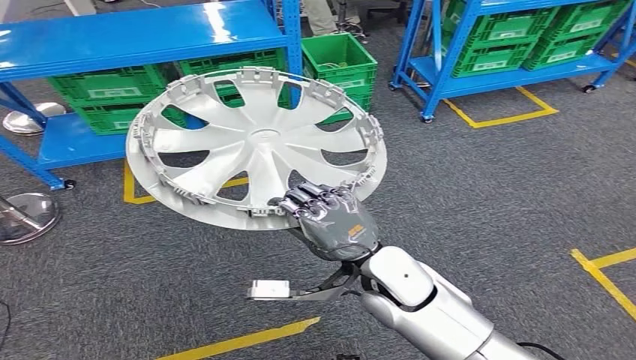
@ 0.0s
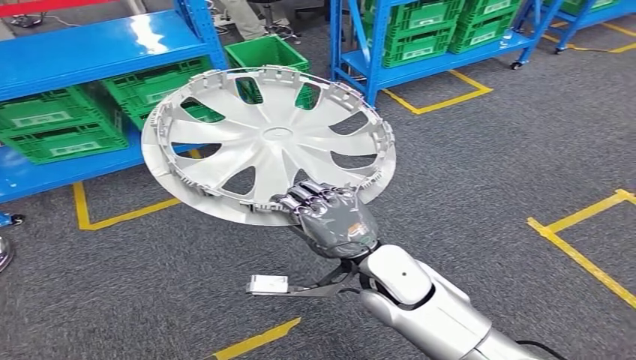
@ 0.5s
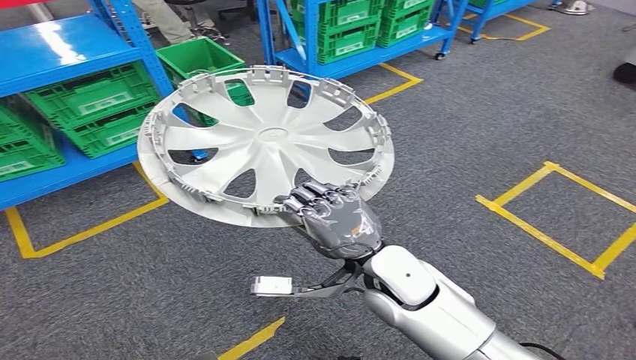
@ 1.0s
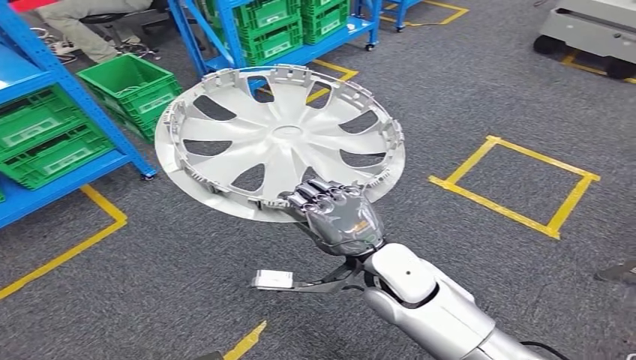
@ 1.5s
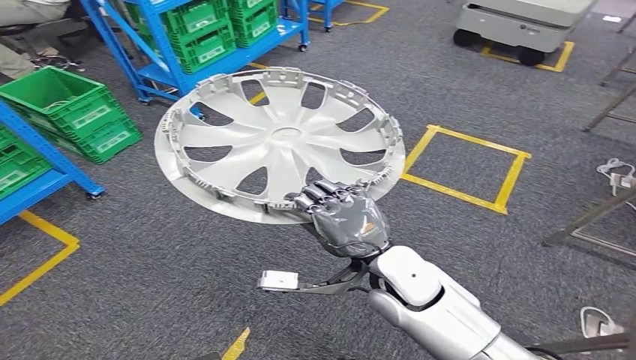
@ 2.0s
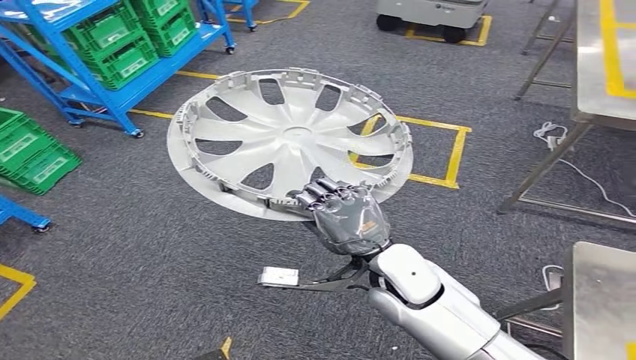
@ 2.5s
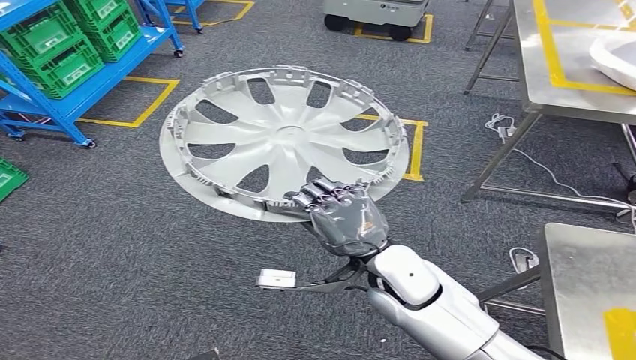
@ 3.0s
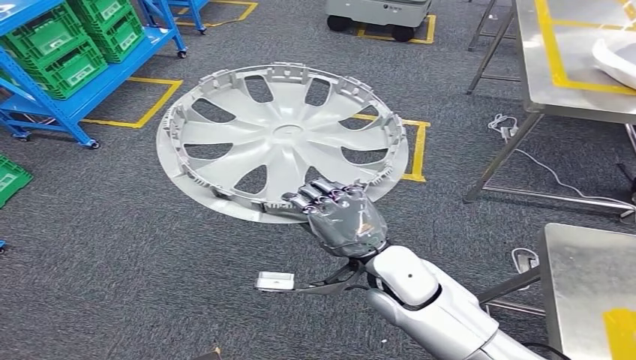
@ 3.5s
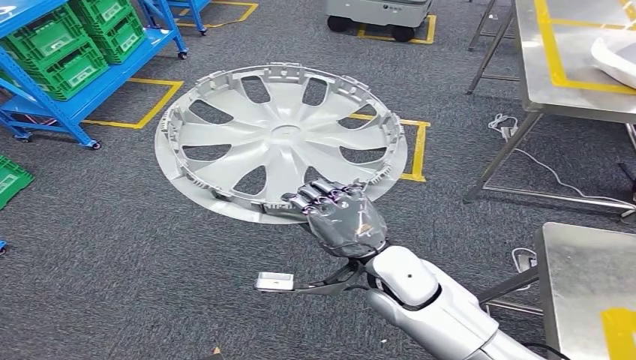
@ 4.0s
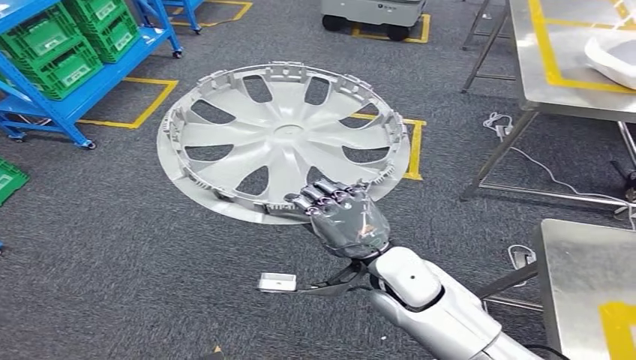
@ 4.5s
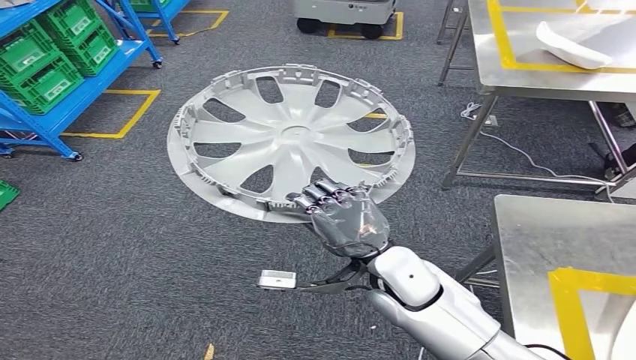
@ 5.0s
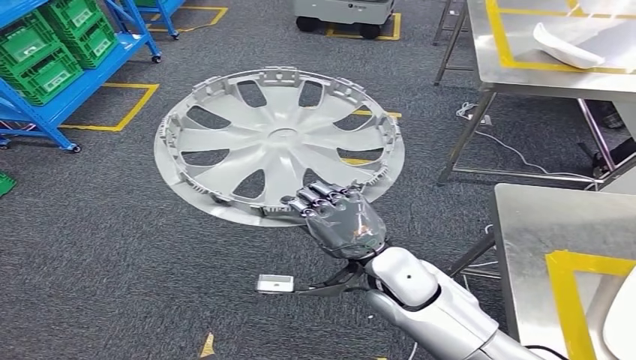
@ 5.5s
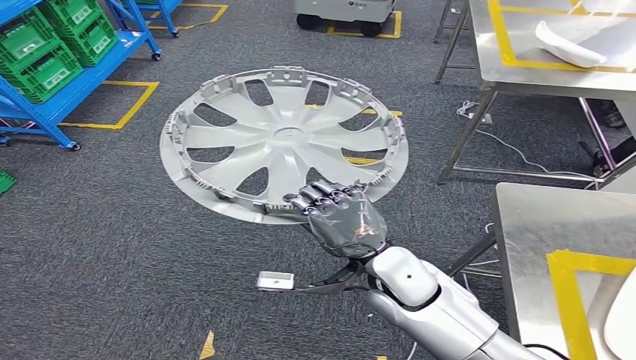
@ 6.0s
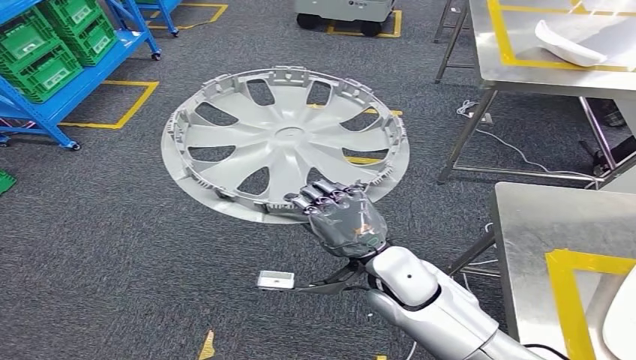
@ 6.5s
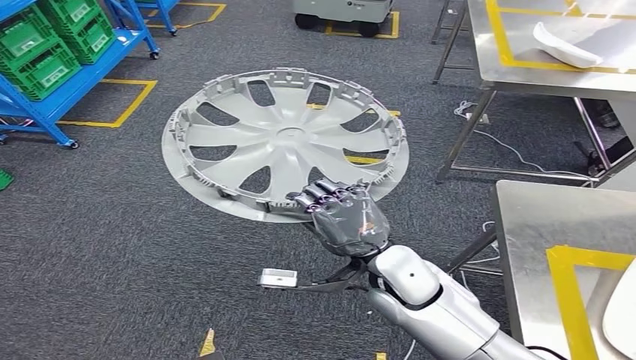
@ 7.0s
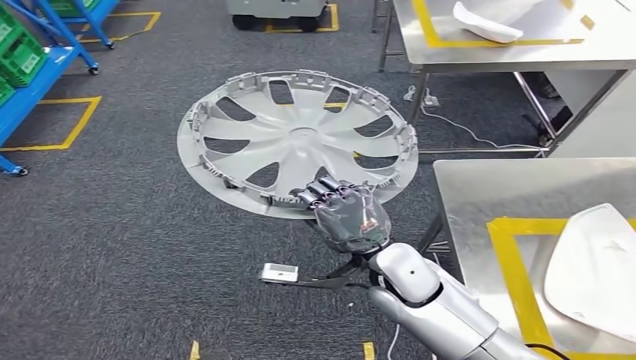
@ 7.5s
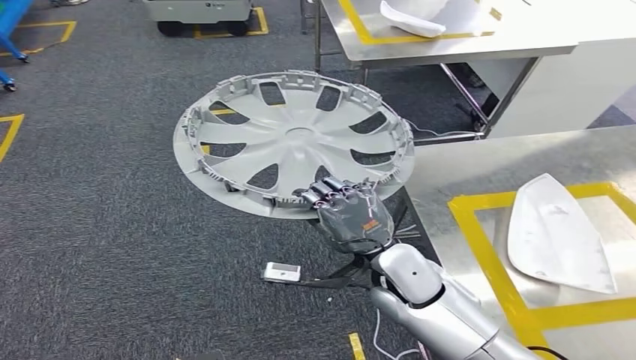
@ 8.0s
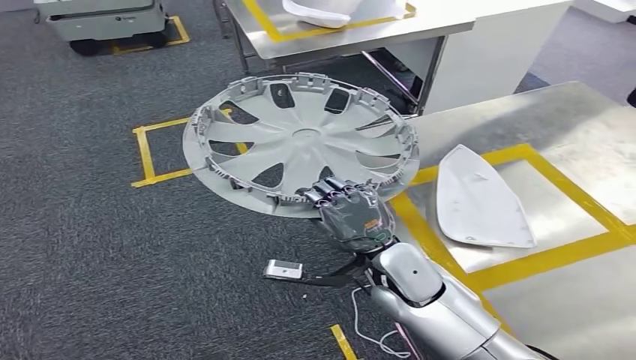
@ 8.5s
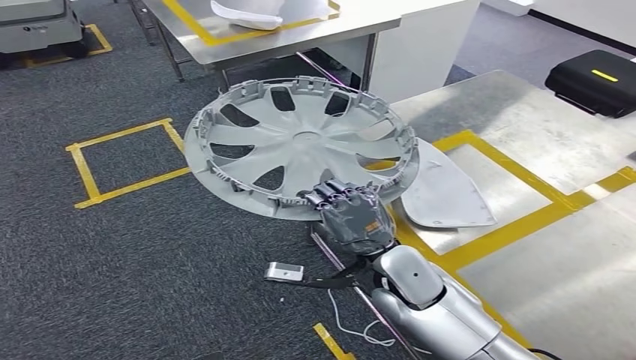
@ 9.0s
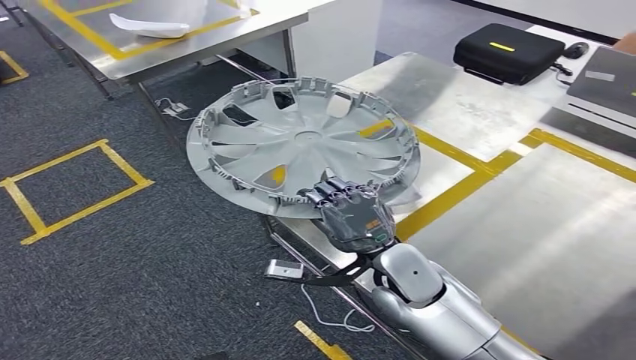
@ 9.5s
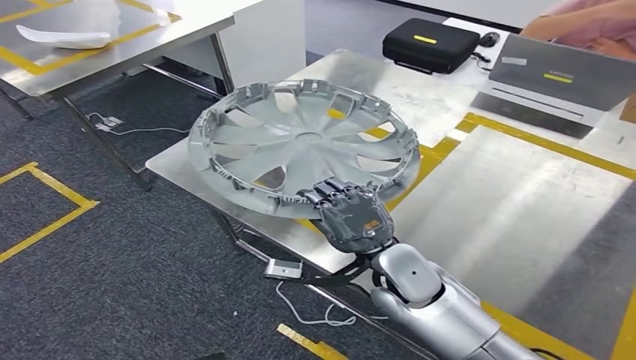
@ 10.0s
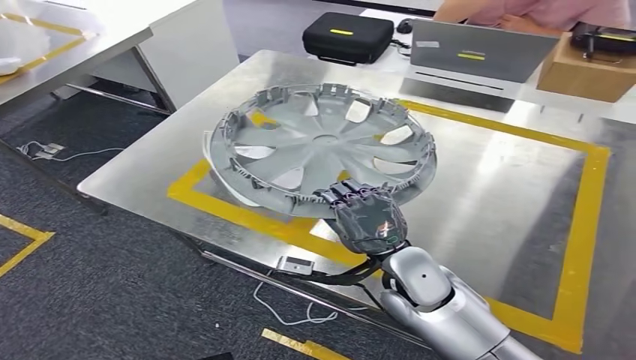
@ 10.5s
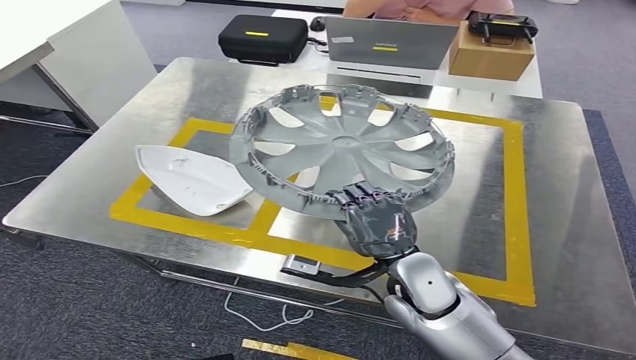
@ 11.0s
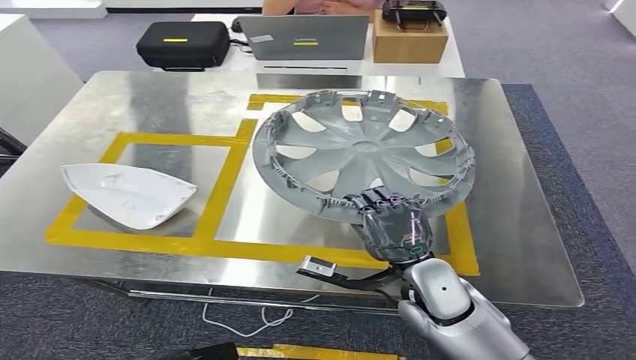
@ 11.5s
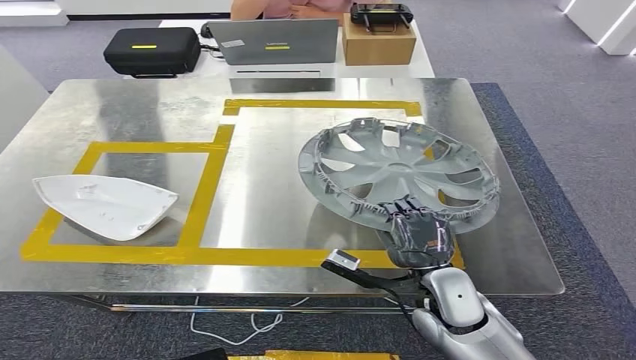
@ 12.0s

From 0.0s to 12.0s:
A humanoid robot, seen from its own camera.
Step, from 0.0s to 4.0s: Move the small parts to the workbench.

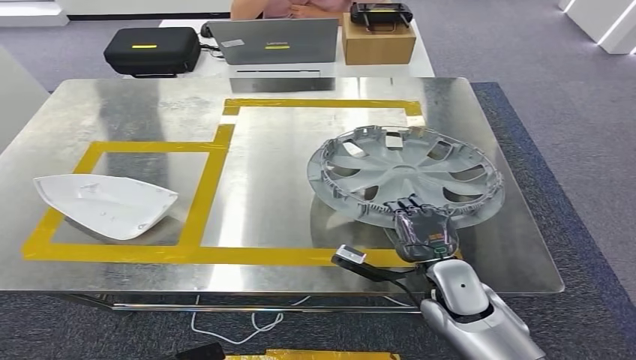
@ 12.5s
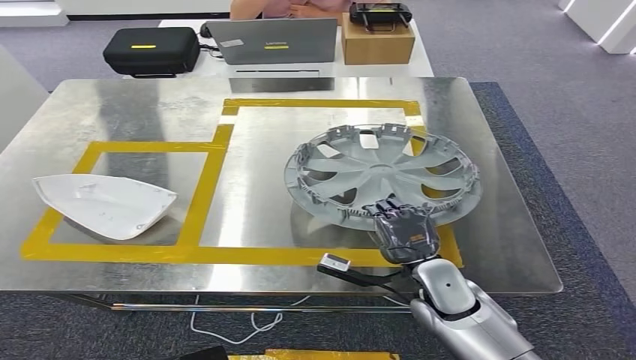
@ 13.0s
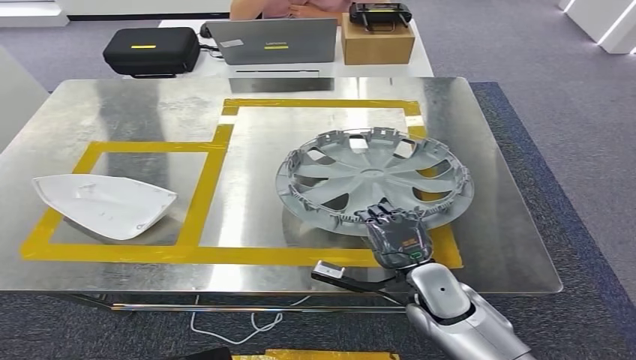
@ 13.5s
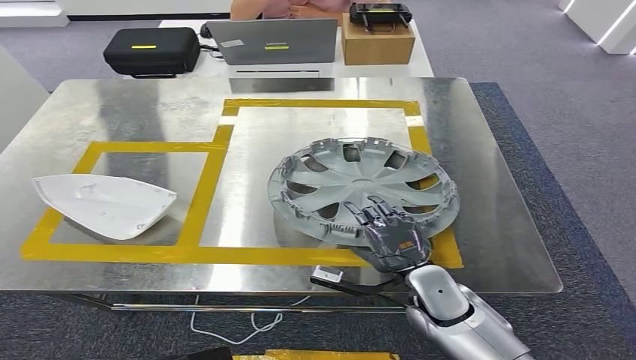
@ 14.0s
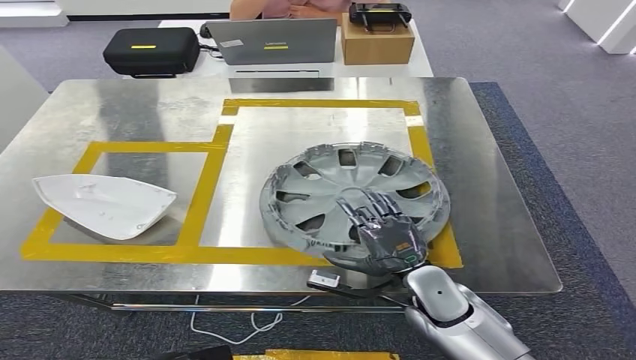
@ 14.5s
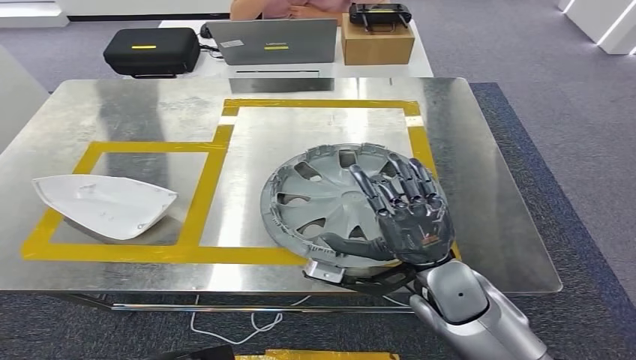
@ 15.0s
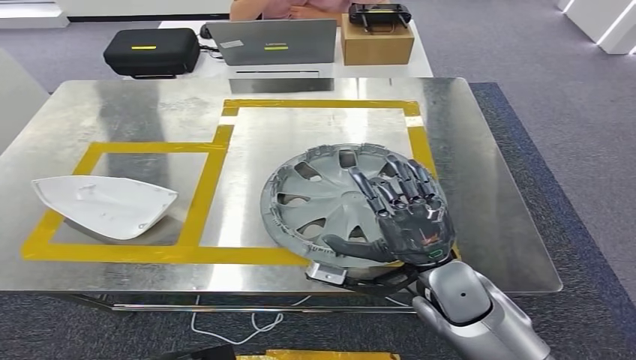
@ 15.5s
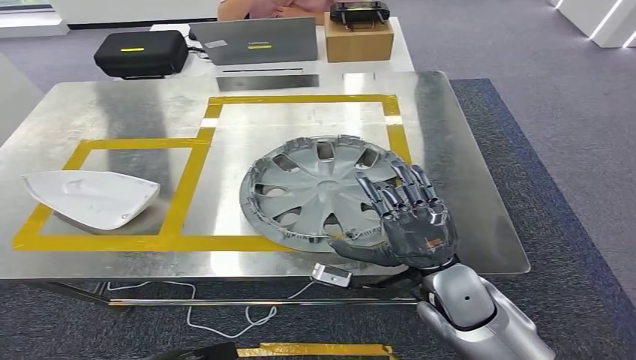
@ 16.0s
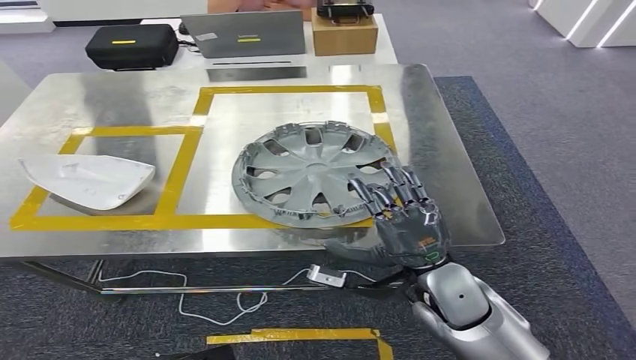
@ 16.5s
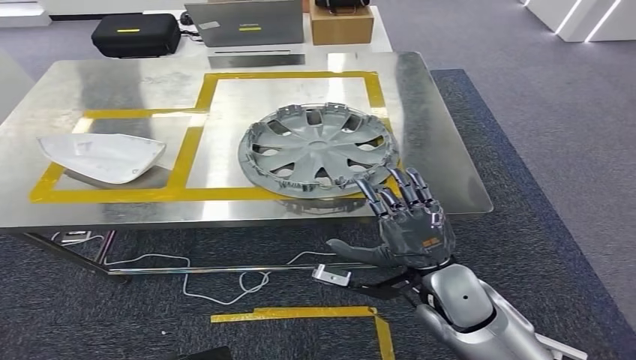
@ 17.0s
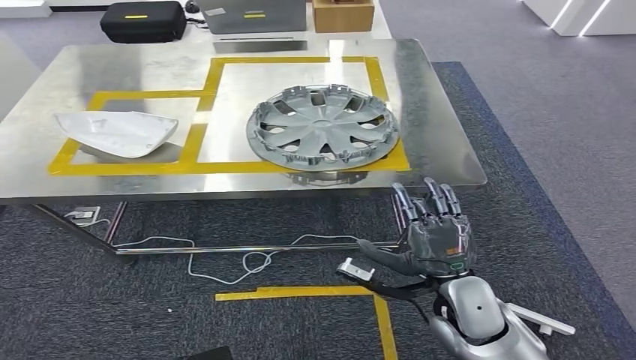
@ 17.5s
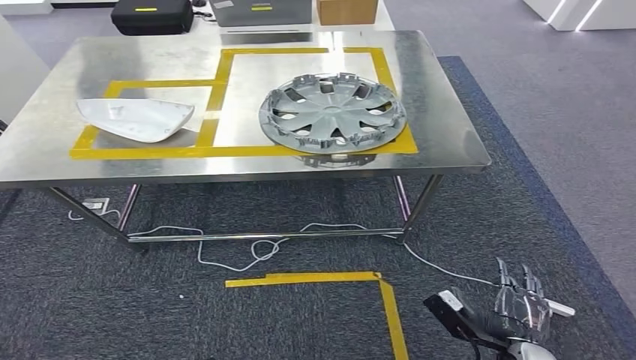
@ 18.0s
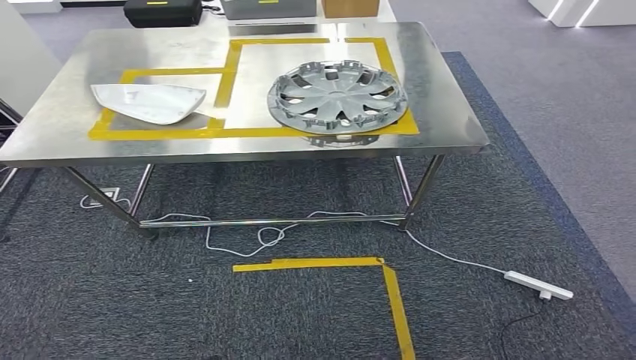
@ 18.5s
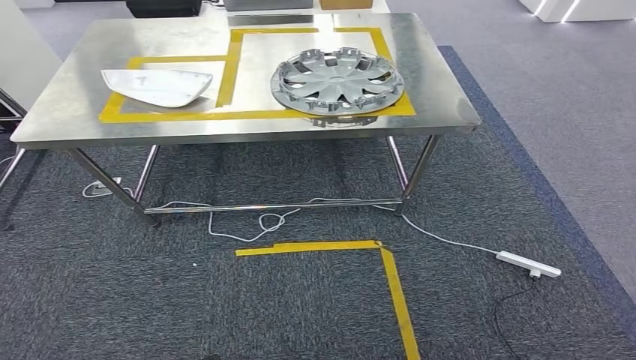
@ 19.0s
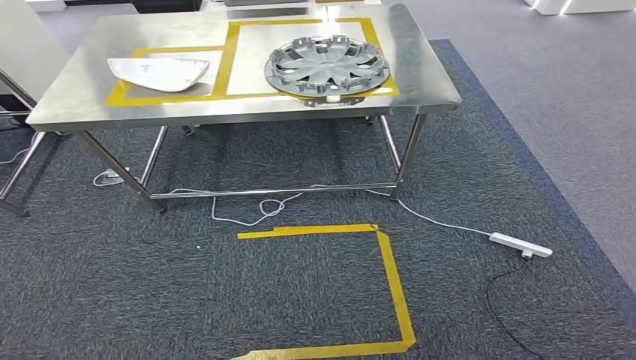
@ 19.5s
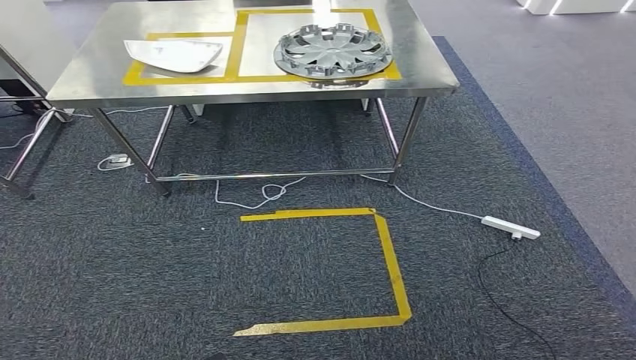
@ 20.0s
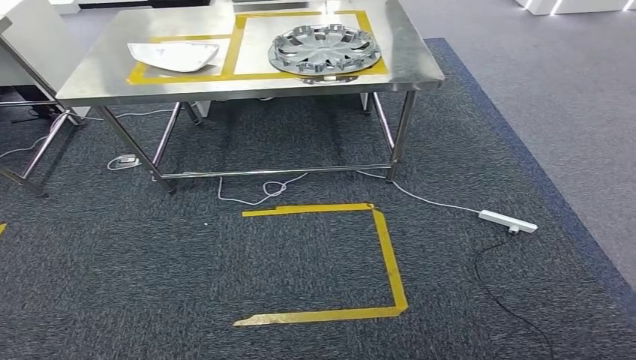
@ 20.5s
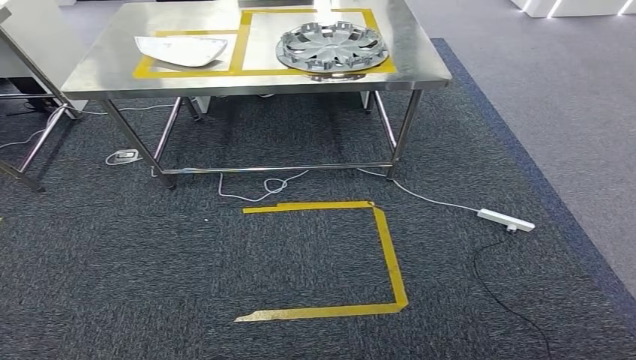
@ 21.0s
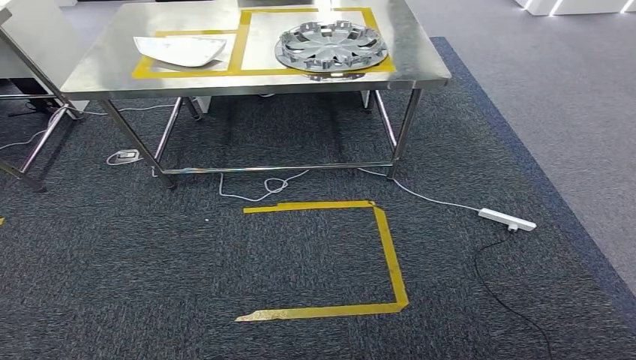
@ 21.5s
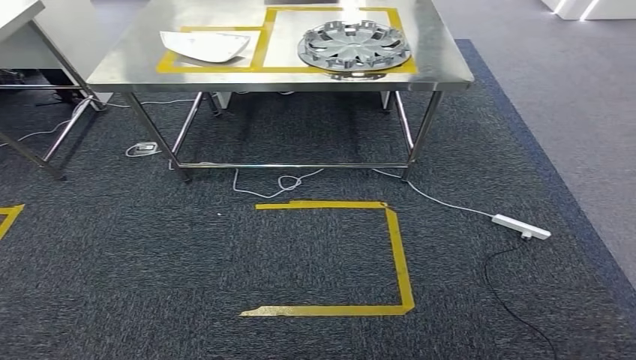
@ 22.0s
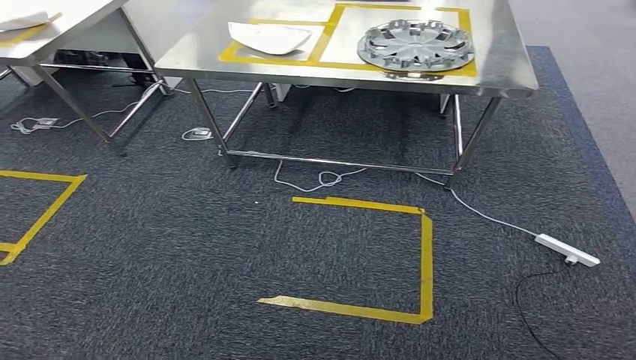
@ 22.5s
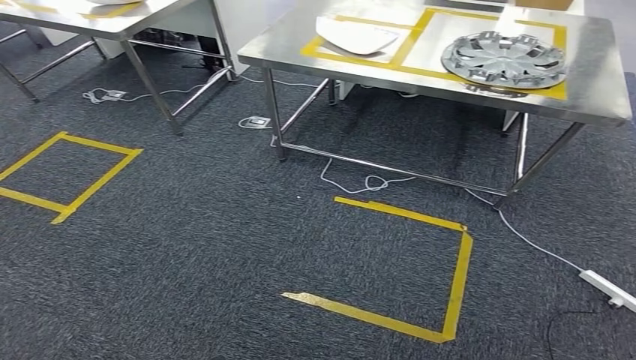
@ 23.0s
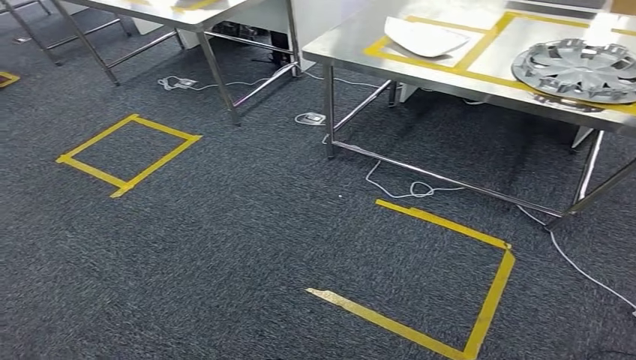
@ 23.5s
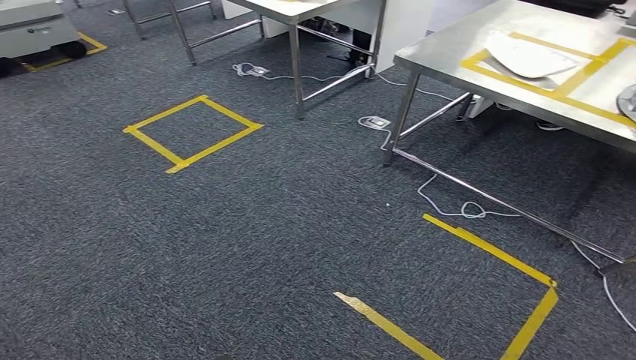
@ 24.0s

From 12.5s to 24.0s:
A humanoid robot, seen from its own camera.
Step, from 12.5s to 18.5s: Insert the small parts into the corresponding holes on the workbench.
From 12.5s to 14.5s: The hands make only small movements.
